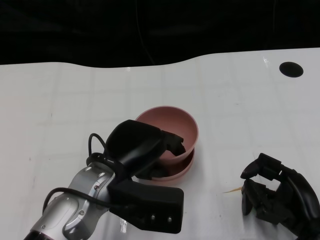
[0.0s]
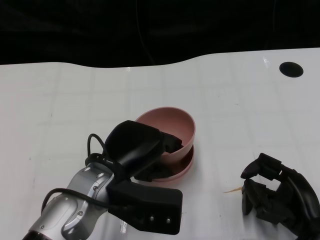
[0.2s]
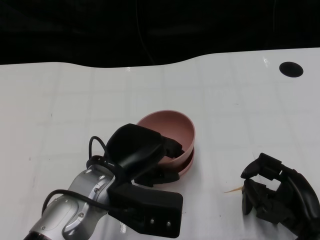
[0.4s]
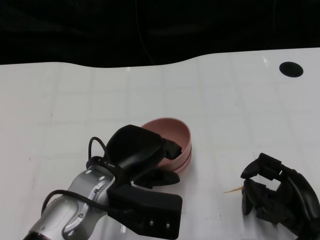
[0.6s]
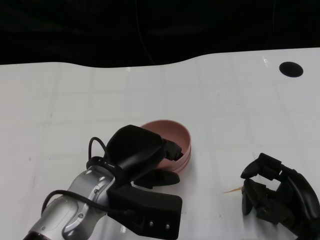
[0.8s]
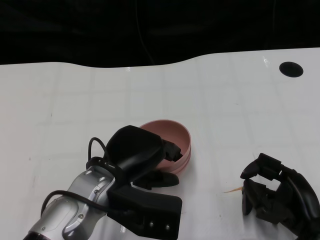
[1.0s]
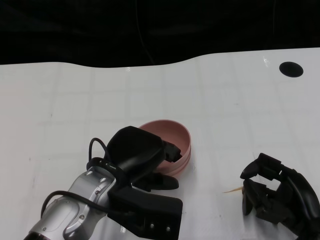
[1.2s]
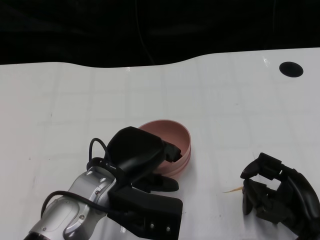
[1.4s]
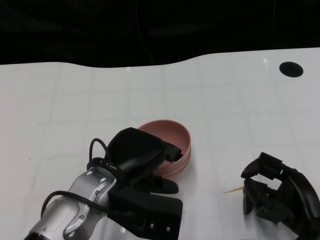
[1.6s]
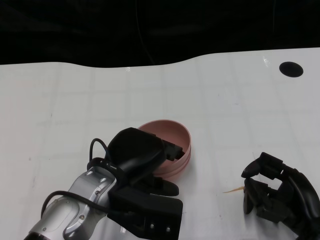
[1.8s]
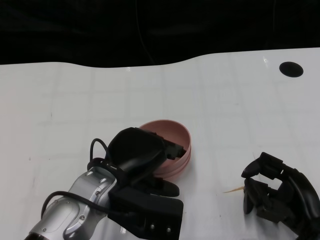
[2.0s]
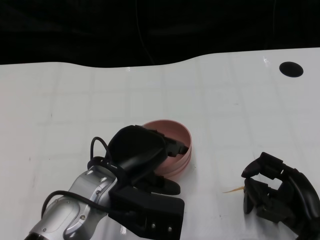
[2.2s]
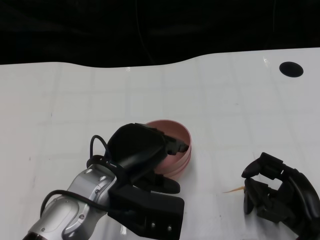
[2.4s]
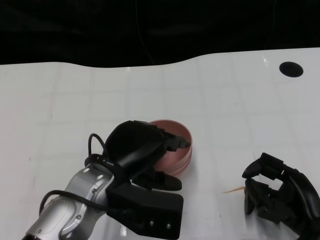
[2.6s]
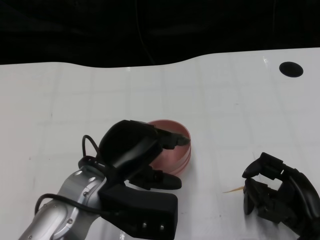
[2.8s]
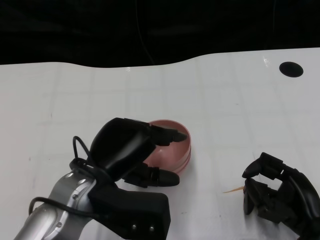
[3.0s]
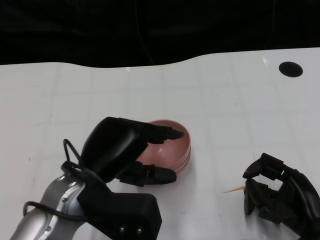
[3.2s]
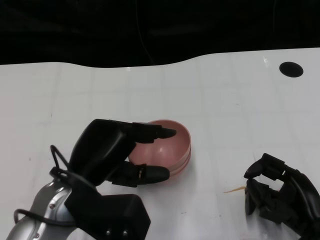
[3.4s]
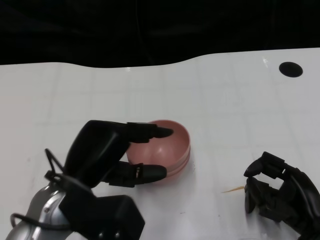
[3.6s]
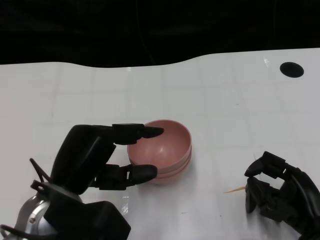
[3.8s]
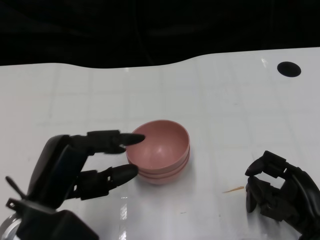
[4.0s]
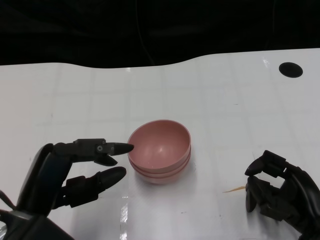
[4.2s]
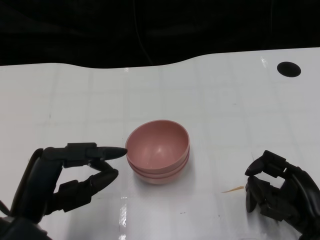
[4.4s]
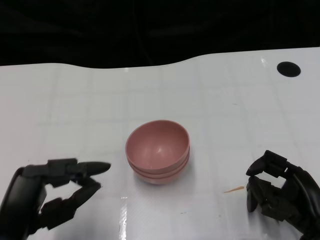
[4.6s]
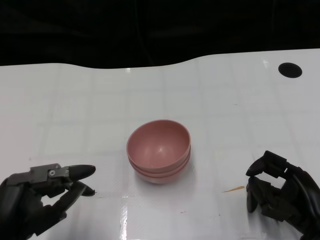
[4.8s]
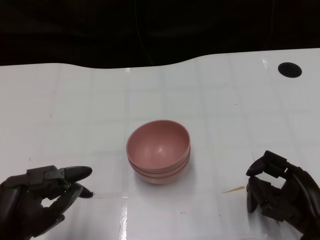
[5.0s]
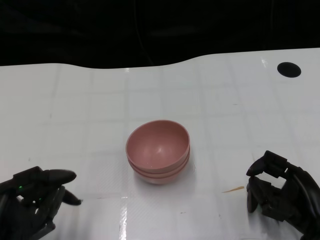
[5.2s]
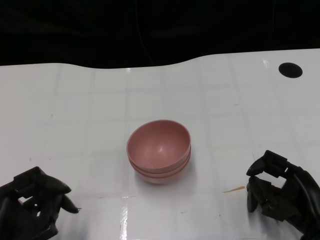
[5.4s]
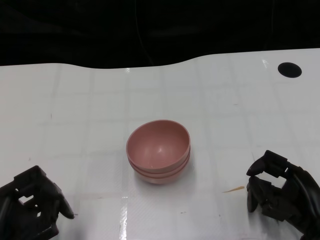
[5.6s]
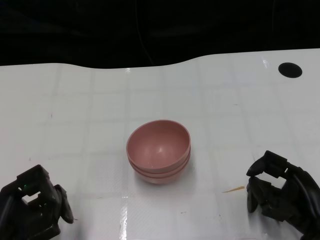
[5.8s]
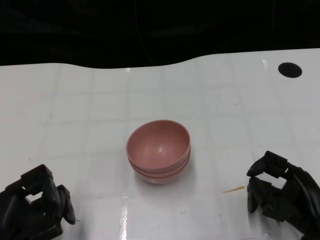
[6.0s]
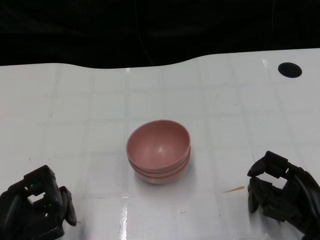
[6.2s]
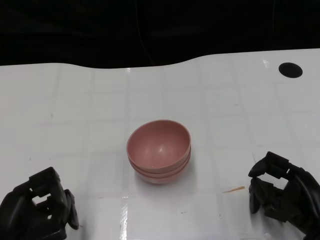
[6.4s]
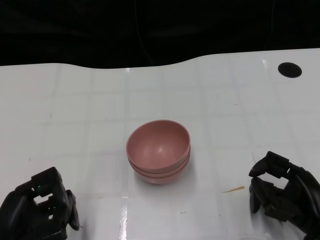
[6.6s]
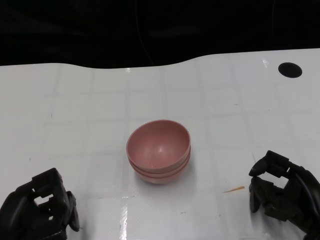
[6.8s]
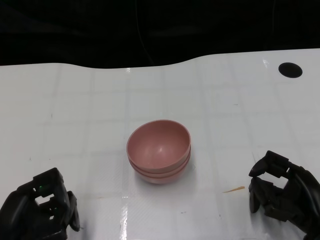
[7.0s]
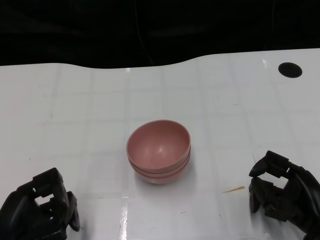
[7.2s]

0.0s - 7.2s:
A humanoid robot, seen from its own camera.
Task of the whole recording: Pick up the bowl on one side of the table and place it on top of the middle bowl, then pick up the bowl on the other side of the table and place it on top of the middle bowls.
Step, 0.0s - 3.8s: Place the bowl on the left onto the bowl in the middle with left gripper.
0.0s - 2.8s: There are only small adjustments of the hands.
2.8s - 4.4s: The left hand shifts about 10 cm to the left and backward.
4.4s - 5.8s: The left hand is displaced downward by roughly 5 cm.
5.8s - 7.2s: The hands stay close to where they were, moving slightly.

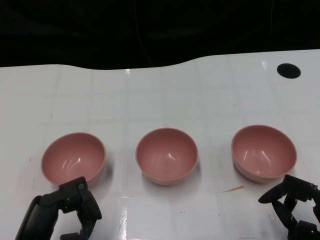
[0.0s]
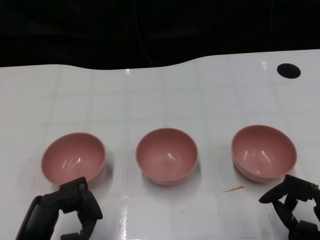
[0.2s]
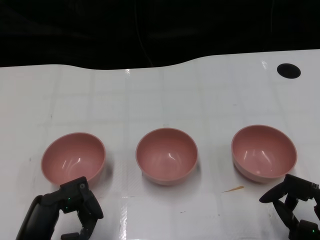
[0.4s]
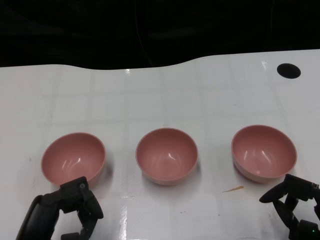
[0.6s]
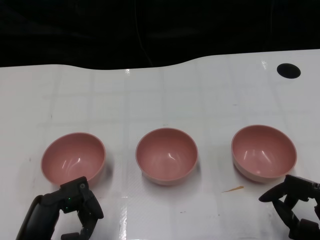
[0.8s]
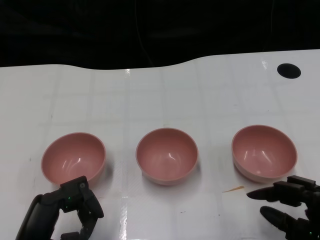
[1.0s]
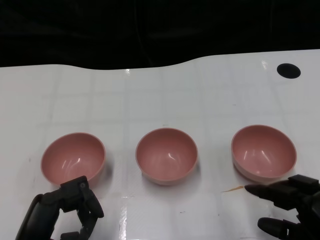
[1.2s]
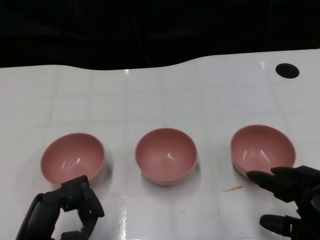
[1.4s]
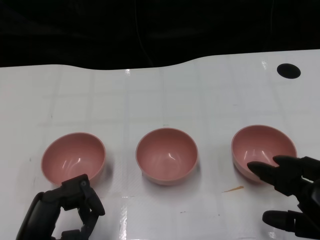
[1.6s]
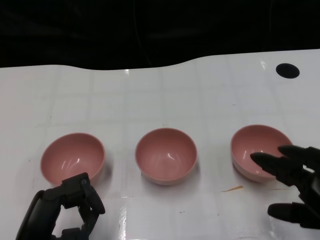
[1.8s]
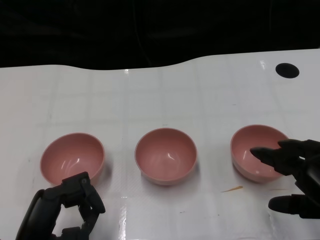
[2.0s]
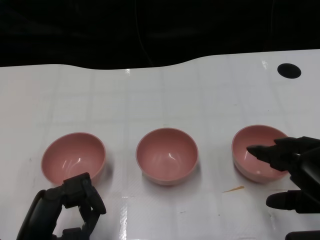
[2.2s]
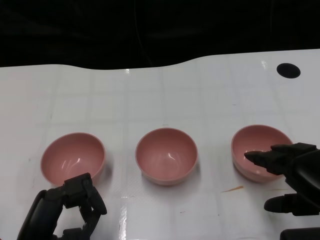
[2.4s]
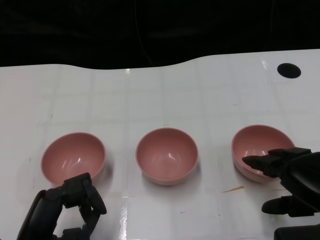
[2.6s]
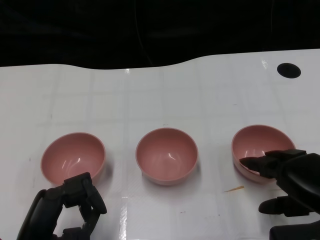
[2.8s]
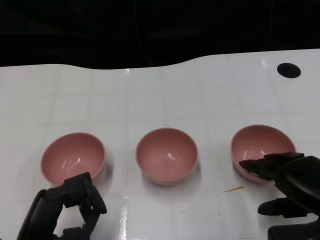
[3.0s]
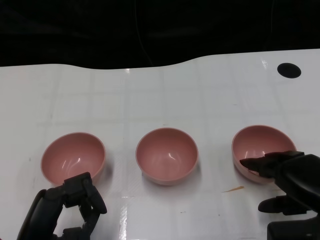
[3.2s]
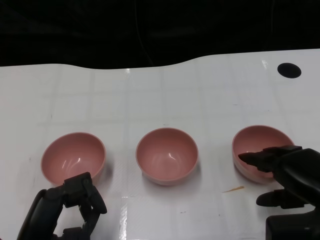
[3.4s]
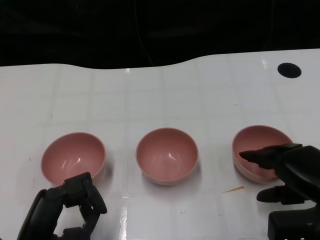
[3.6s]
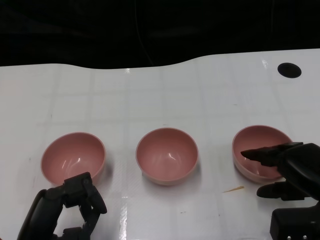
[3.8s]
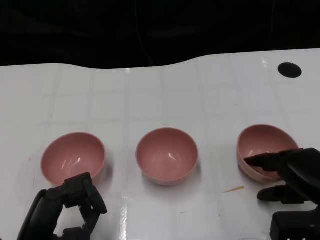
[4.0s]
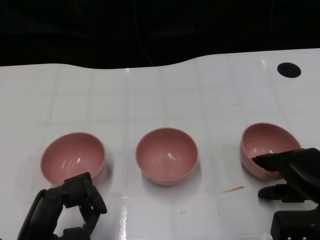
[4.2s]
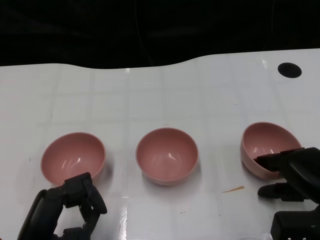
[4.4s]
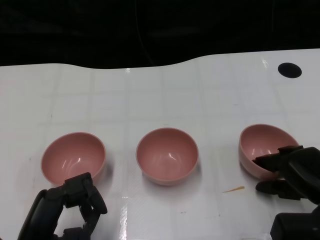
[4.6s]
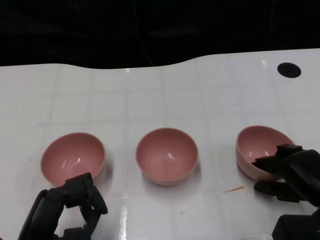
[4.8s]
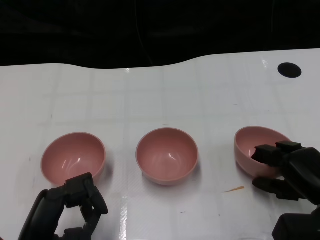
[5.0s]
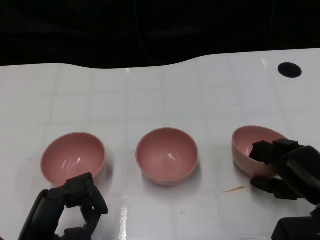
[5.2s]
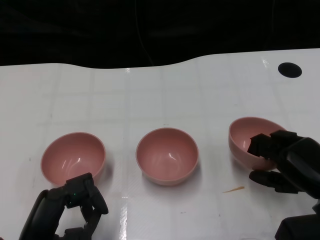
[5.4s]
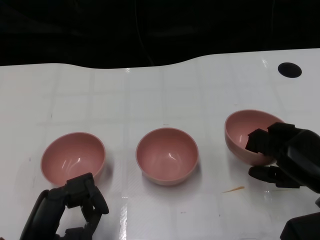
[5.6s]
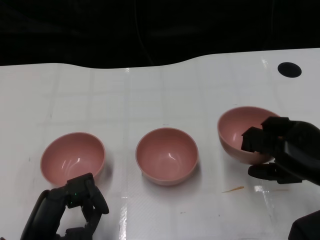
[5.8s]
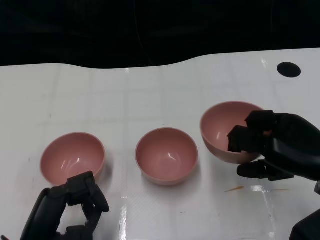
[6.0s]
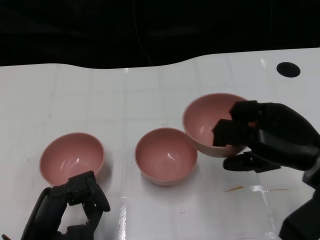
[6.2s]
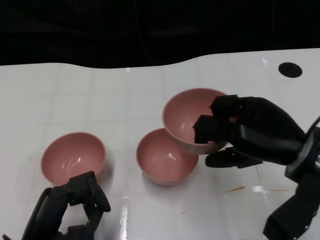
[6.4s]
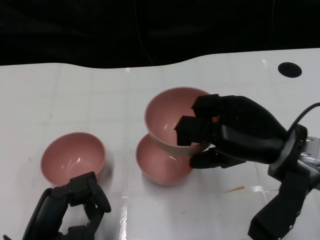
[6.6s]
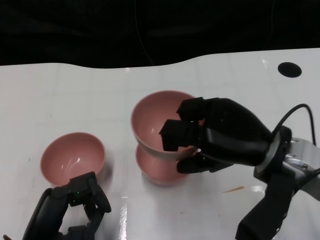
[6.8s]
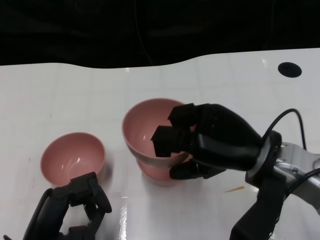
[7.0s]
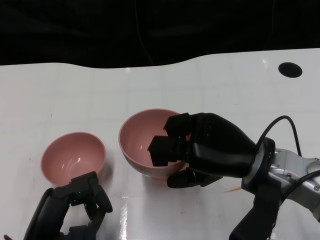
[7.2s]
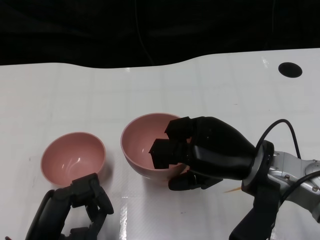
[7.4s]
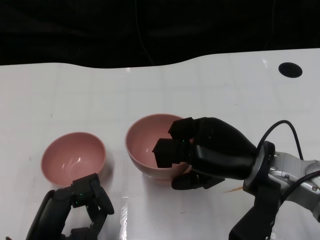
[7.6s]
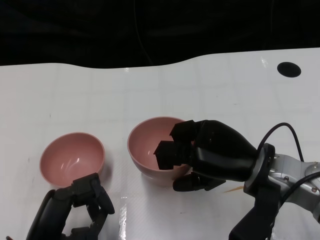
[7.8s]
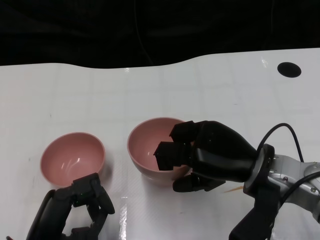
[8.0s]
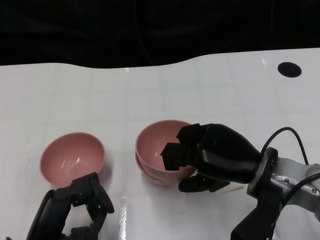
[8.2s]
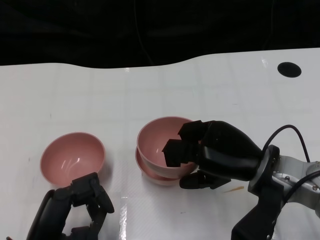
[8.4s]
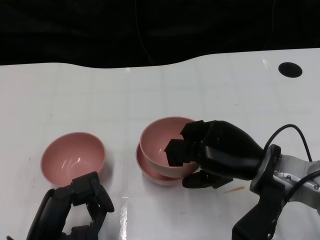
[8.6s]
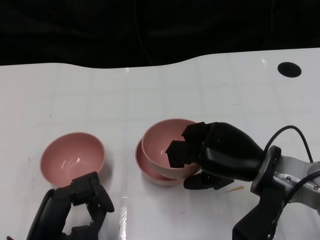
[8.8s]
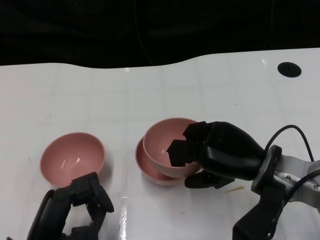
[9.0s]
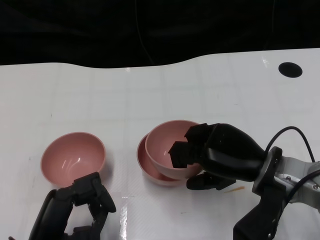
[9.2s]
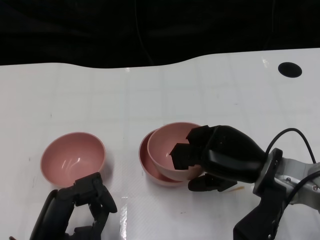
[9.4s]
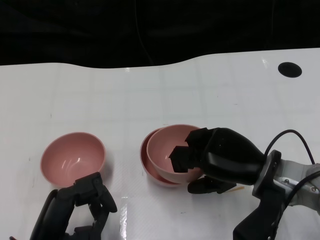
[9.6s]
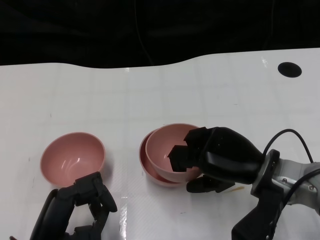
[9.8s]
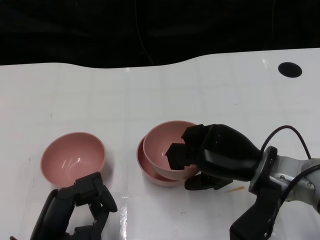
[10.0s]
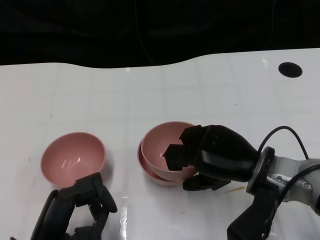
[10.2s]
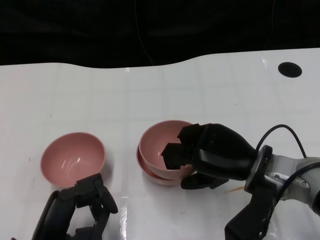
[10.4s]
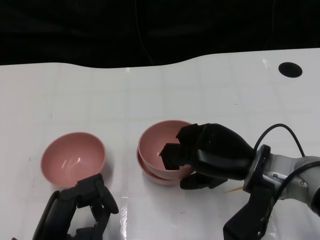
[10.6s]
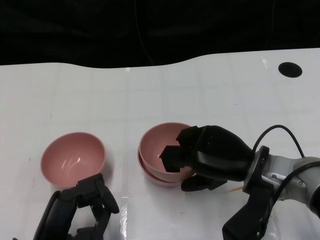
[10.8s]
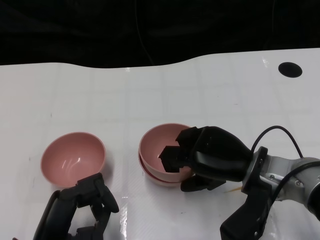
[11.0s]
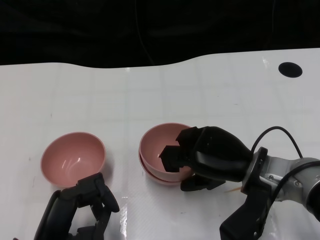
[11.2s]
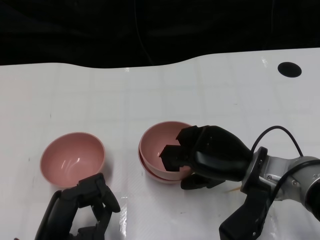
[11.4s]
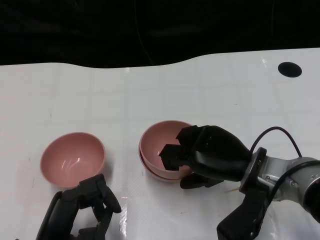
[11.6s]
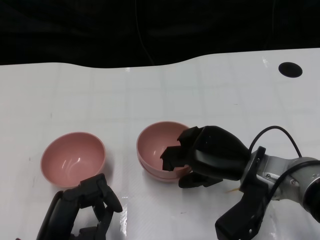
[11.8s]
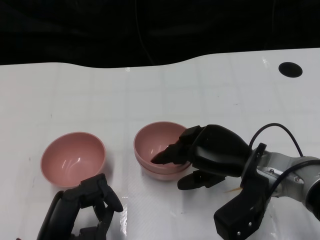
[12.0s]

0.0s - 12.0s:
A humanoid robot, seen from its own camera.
Task of the whole recording: Pick up the bowl on one side of the table and place it on top of the middle bowl, then pick up the bowl on the other side of the table and place it on top of the middle bowls.
Step, 1.0s - 5.2s: Grasp the bowl on the right with the right gripper.
1.6s - 3.0s: The right hand goes roughly 5 cm forward.
3.0s - 4.4s: The right hand ends up approximately 5 cm from where it was.
4.4s - 6.0s: The right hand moves upward, roughly 5 cm.
6.0s - 7.6s: The right hand heads to the left, covering about 10 cm.
7.6s - 9.0s: There are only small adjustments of the hands.
9.0s - 10.4s: Neither hand changes place.
10.4s - 12.0s: There are only small adjustments of the hands.

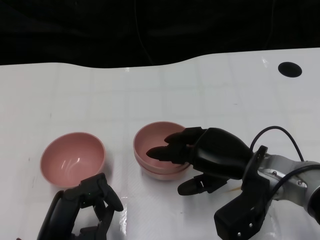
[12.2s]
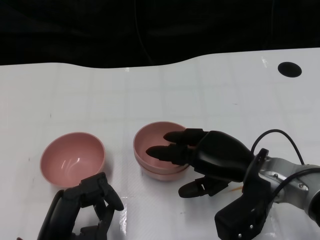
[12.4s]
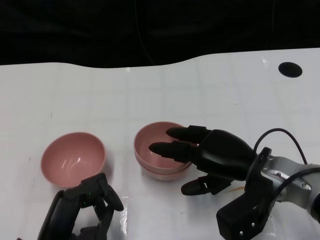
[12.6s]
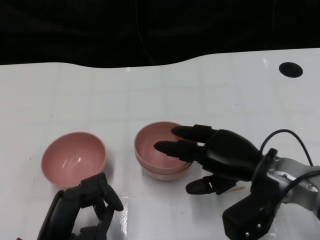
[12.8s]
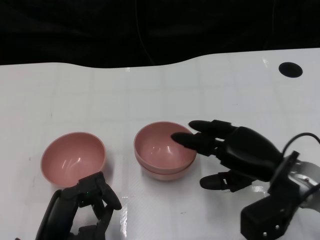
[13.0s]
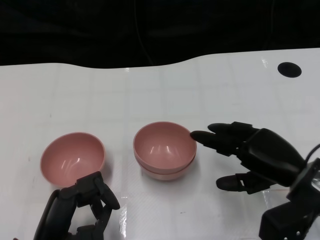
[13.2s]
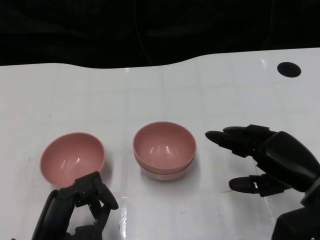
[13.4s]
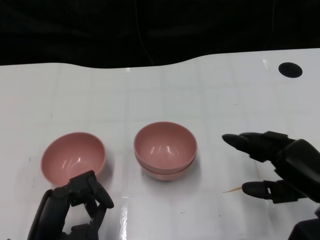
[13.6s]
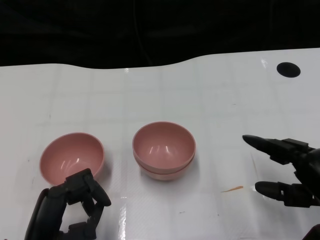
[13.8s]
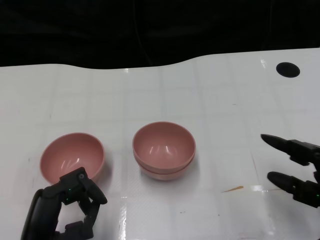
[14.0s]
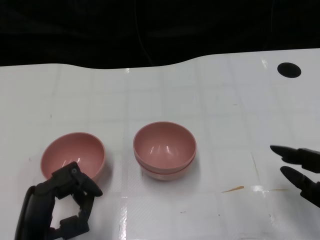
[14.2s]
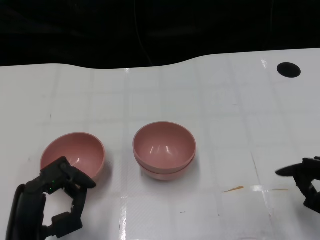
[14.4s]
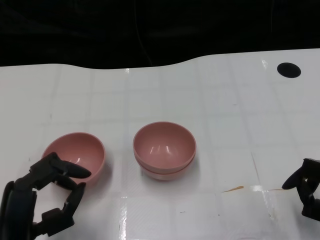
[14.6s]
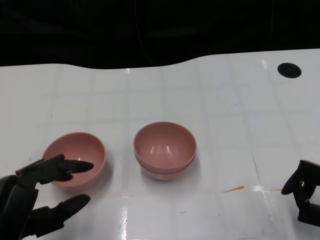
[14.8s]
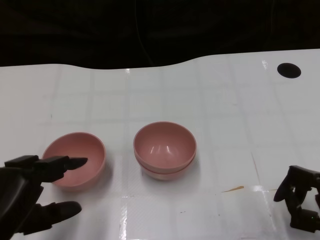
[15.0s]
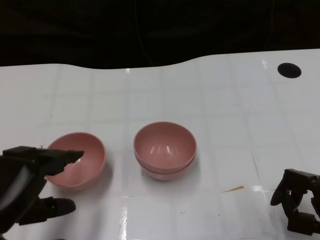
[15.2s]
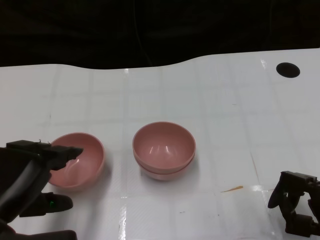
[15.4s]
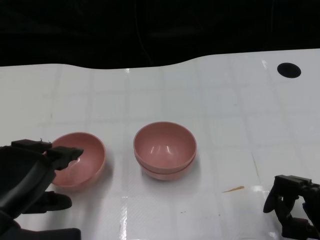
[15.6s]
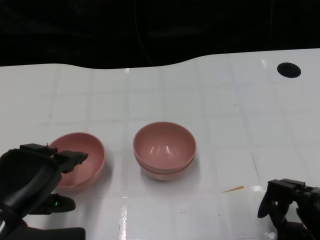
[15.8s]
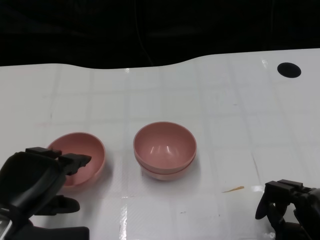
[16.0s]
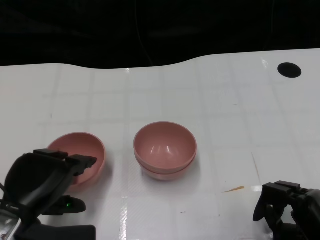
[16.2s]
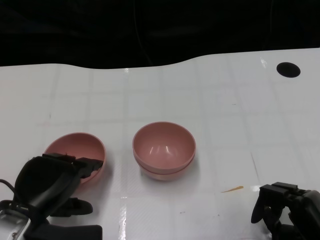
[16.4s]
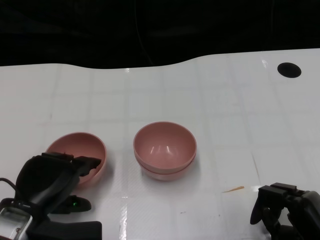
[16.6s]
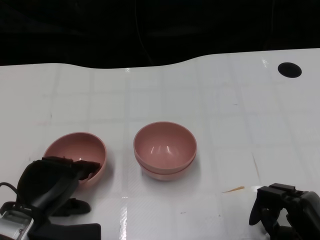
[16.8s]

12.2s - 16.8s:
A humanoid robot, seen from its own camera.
Task of the whole recording: Pick up the bowl on one side of the table and place it on top of the middle bowl, then pick up the bowl on the other side of the table and place it on top of the middle bowls.
12.2s - 13.8s: The right hand travels to the right and backward by approximately 15 cm.
13.8s - 15.2s: The right hand shifts by roughly 5 cm; the left hand heads upward, covering roughly 10 cm.
15.2s - 16.8s: The left hand goes about 10 cm downward and forward.
